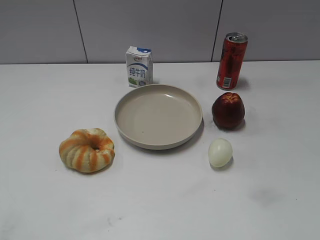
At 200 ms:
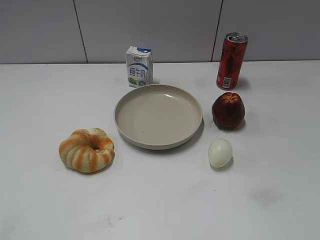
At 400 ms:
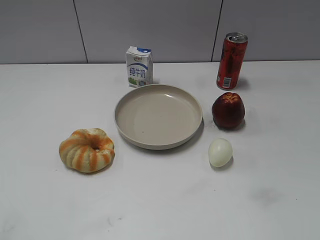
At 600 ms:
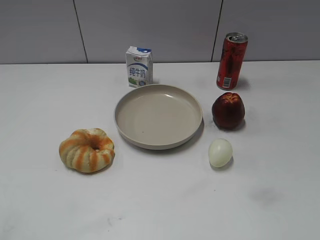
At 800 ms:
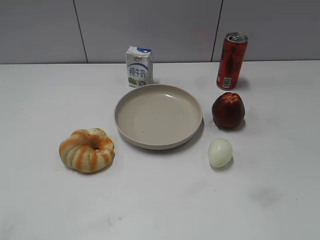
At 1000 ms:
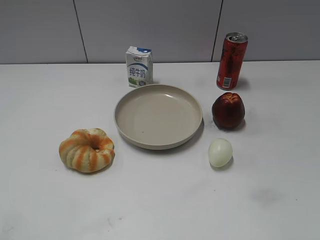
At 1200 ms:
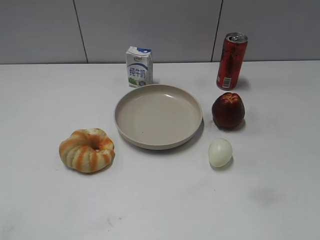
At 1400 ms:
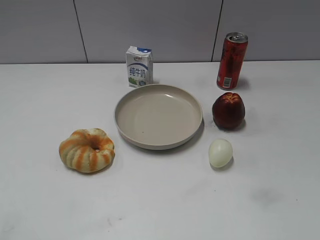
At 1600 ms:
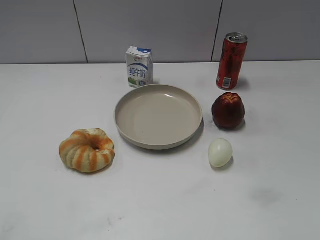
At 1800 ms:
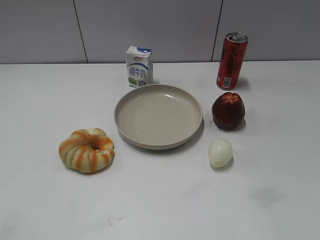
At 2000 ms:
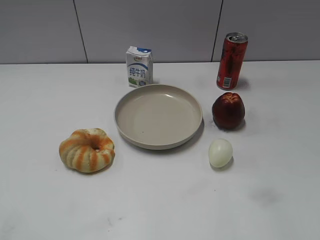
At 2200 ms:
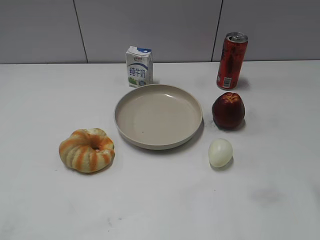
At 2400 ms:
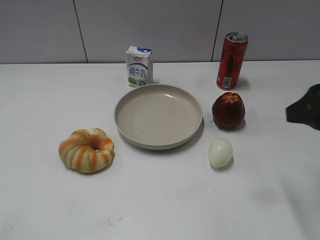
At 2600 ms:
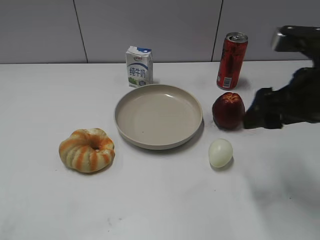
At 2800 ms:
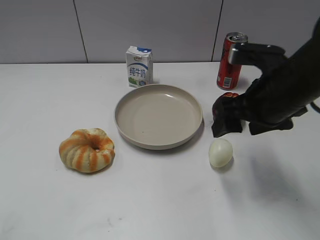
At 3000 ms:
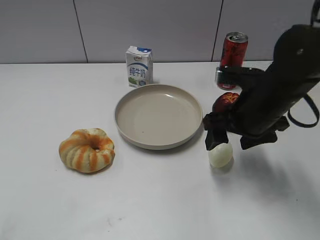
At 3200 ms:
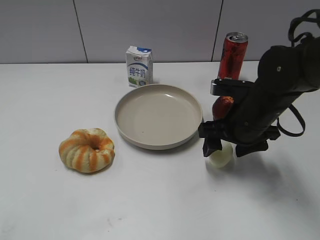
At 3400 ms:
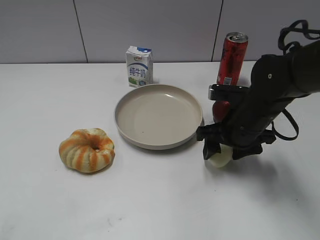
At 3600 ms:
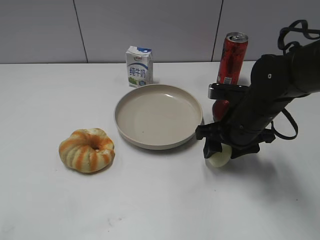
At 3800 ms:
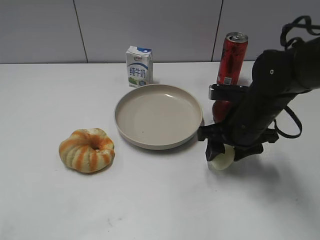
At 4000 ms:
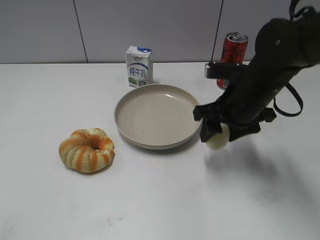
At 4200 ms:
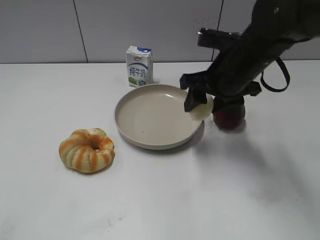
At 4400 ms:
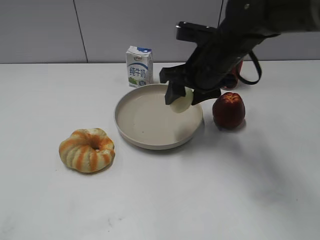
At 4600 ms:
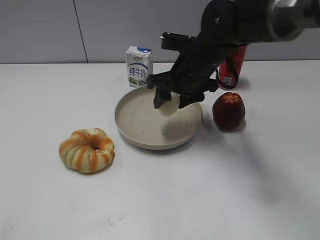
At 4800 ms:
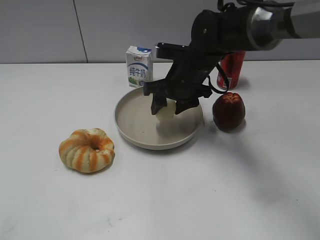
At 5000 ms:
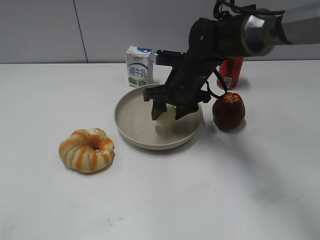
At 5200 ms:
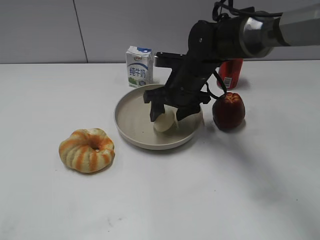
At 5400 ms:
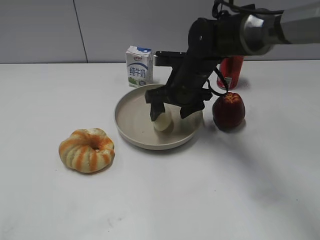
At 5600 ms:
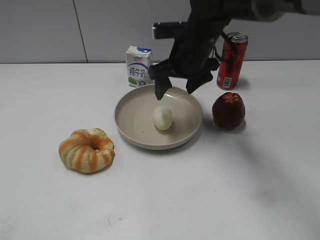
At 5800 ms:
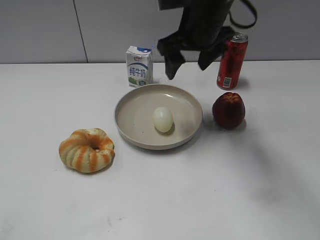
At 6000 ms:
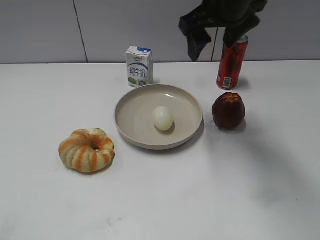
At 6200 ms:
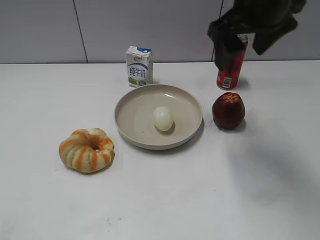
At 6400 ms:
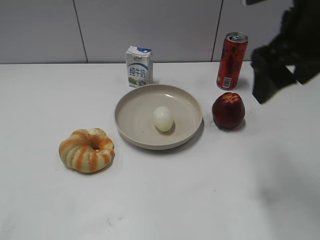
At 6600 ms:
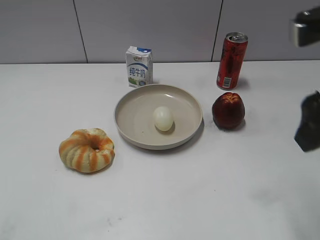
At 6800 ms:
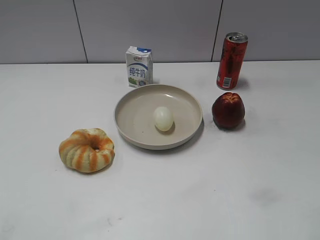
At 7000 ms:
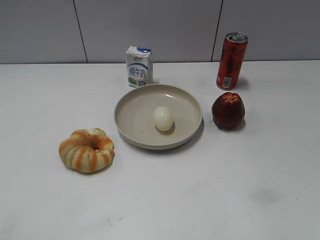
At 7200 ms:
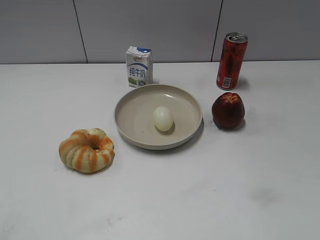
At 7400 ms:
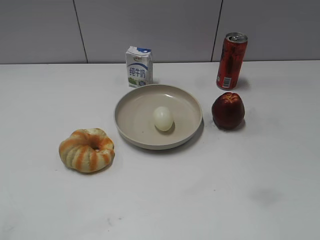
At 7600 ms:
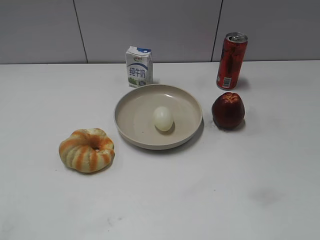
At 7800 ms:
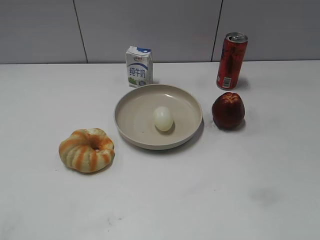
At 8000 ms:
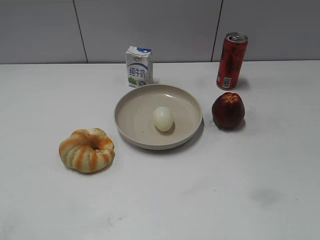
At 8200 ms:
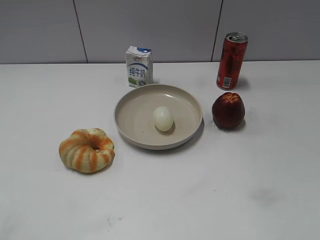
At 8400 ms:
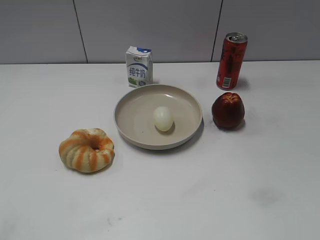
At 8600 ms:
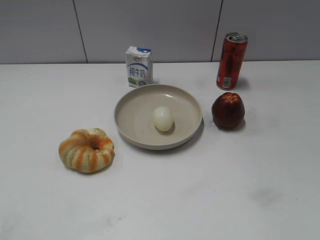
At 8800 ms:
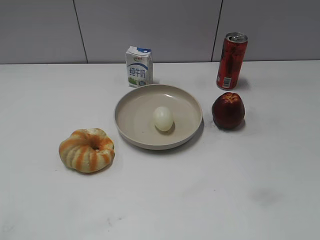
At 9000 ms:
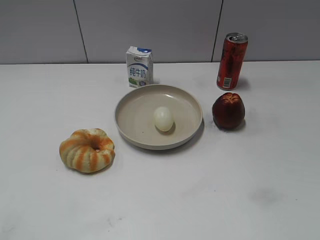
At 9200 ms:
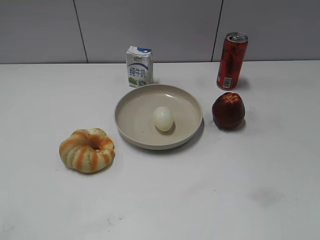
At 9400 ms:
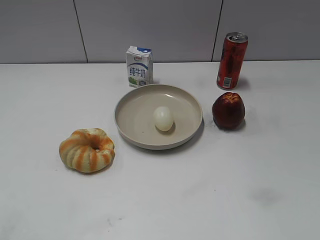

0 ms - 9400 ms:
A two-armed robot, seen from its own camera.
Step, 1400 ms - 3600 ms: Grasp the egg with right gripper.
Step, 4000 ms - 5400 ms: Place the egg on the plate with right gripper.
1600 ms - 3200 ms: The right gripper heads forward, downward and to the left, covering roughly 35 cm.
3200 ms - 4800 ms: The right gripper shifts roughly 15 cm to the left and forward, and closes its fingers.
4800 ms - 6200 ms: The right gripper travels upward by about 20 cm, and opens its fingers.
6200 ms - 7800 ms: The right gripper shifts approximately 30 cm backward and to the right.
